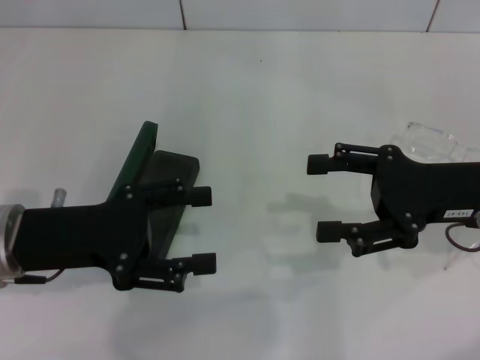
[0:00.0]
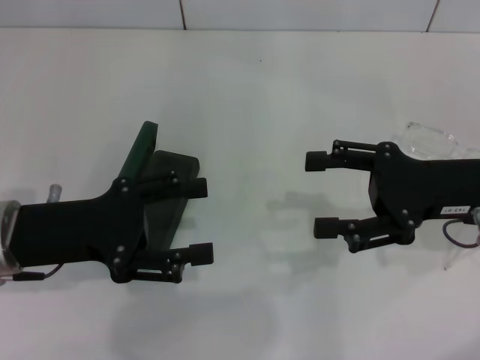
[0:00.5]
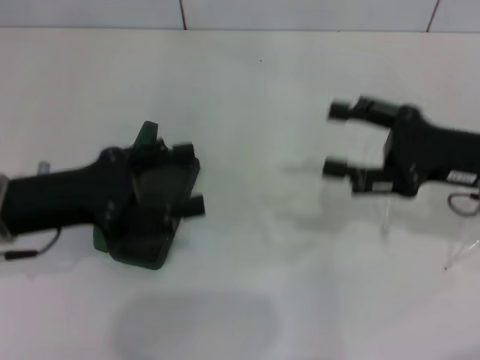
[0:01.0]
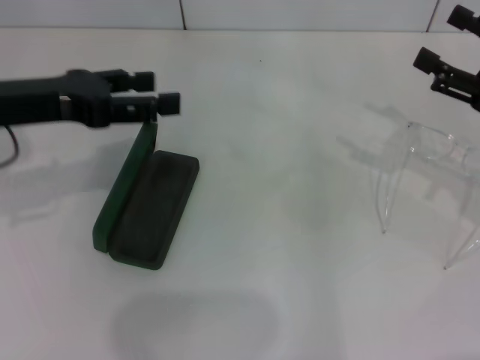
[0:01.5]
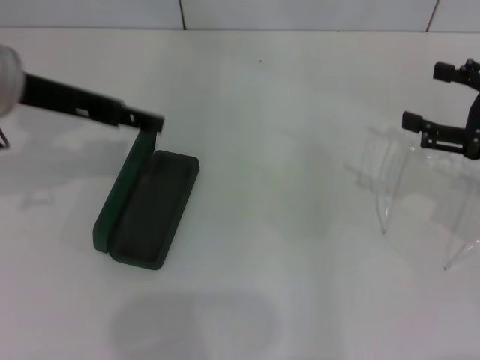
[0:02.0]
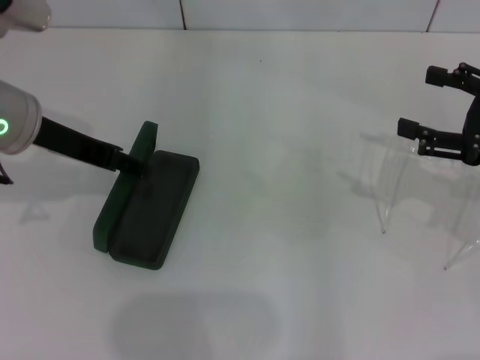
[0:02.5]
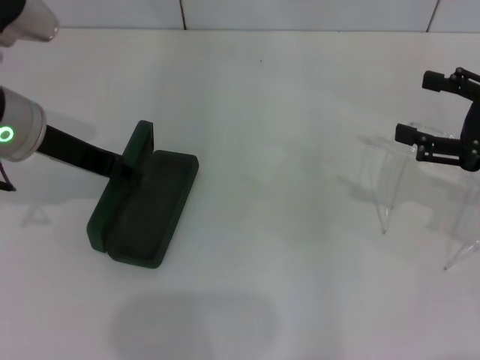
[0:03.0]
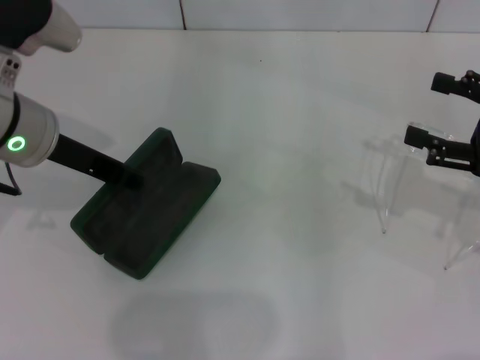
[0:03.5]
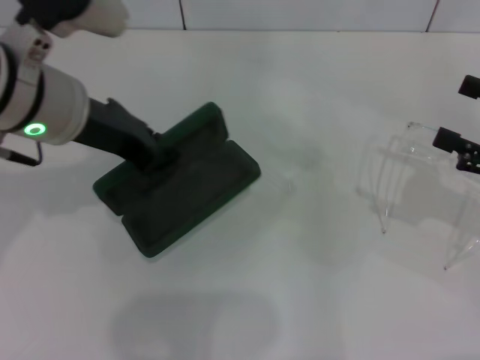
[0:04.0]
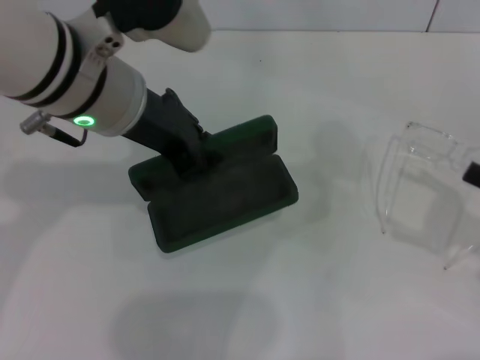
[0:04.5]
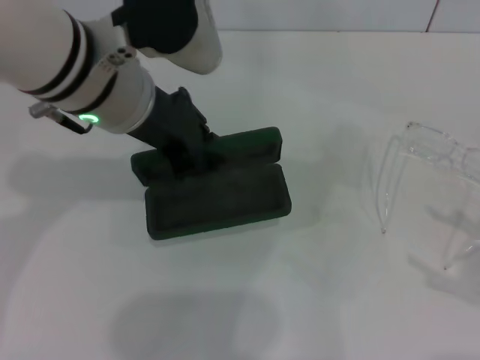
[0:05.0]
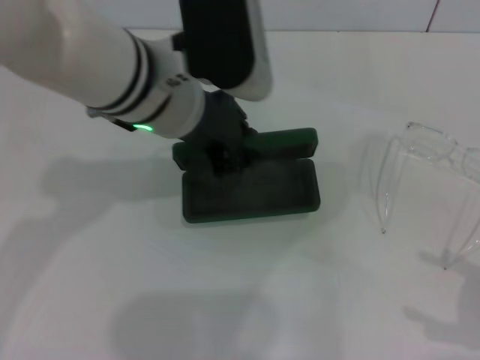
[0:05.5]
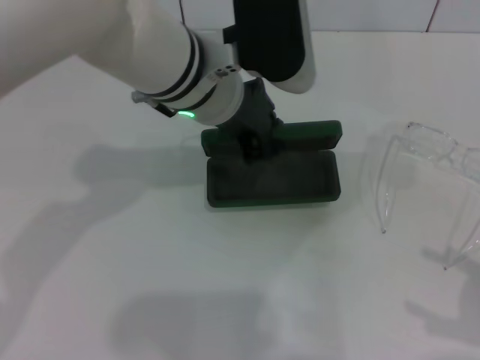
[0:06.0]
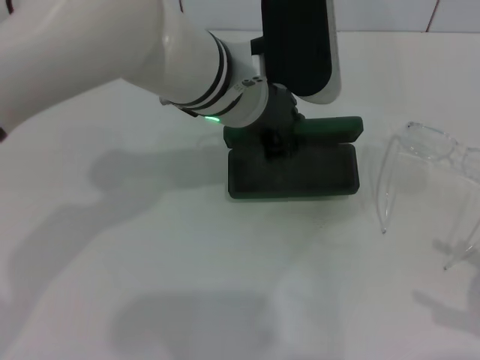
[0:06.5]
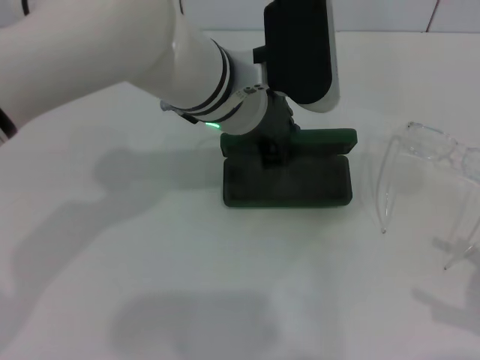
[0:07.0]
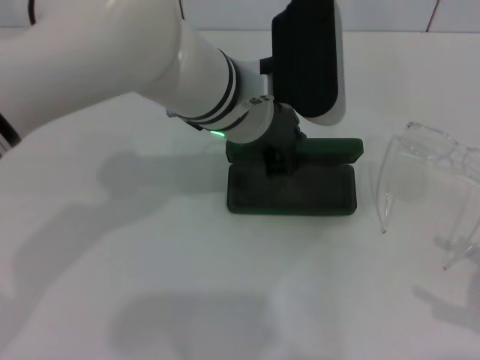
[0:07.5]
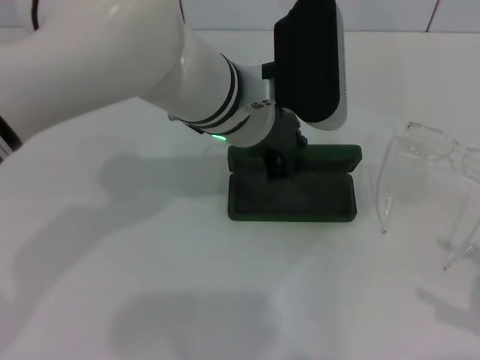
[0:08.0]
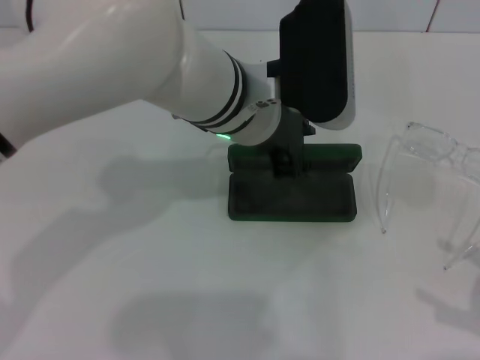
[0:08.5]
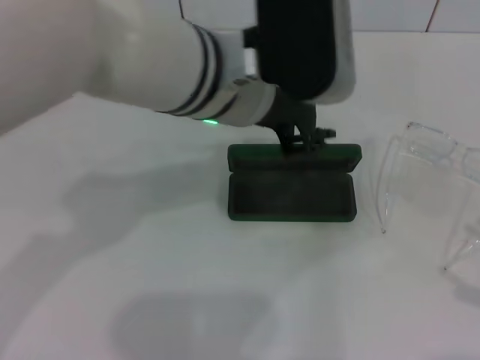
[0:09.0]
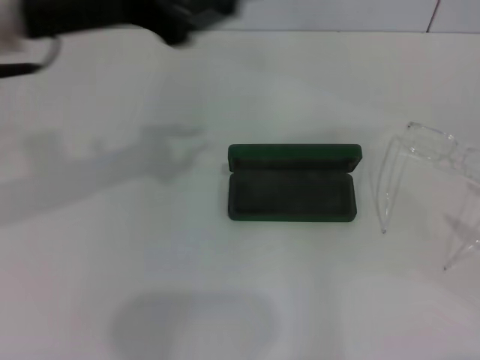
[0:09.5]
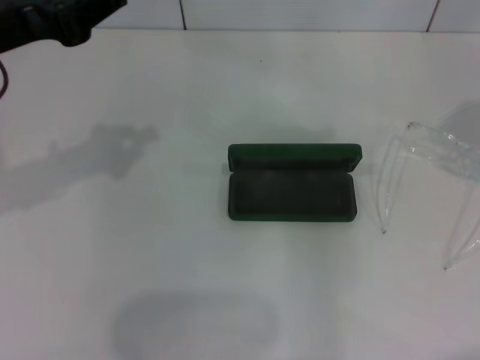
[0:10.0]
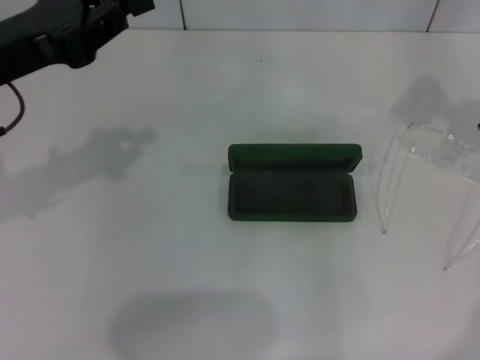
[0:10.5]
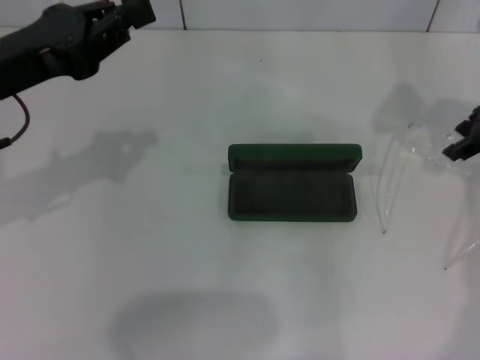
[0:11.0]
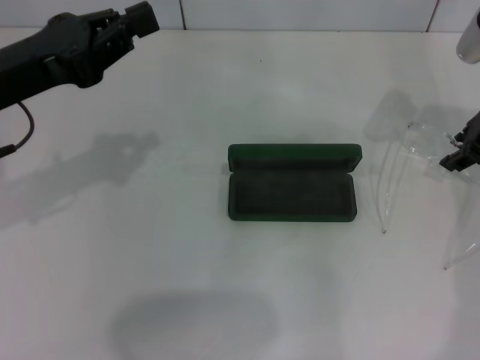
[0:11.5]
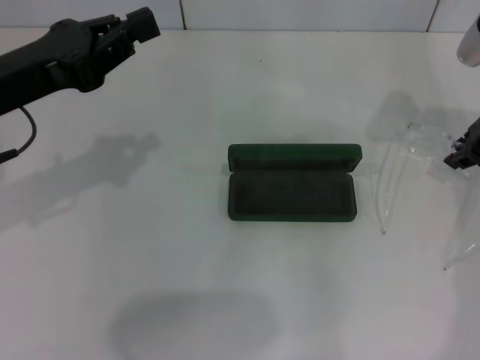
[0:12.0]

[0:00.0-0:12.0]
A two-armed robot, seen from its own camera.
Step, 0:00.0 to 0:03.0: Grab the glasses case with your left hand.
Step, 0:03.5 to 0:08.0: Place the glasses case in the center of the table with your left hand.
0:00.0 to 0:02.0: The left gripper heads upward and forward, covering some 15 cm. The right gripper shifts about 10 cm to the right.
0:02.0 to 0:04.0: The left gripper goes approximately 5 cm to the right, and closes its fingers.
0:04.0 to 0:06.0: The right gripper is displaced backward by roughly 10 cm. Meanwhile the left gripper moves to the right, about 10 cm.
0:08.0 to 0:10.0: The right gripper goes some 25 cm forward and upward. The left gripper is displaced to the left by some 25 cm.
0:10.0 to 0:12.0: The left gripper moves downward, roughly 5 cm; the right gripper moves downward, to the left and forward, some 15 cm, and closes its fingers.

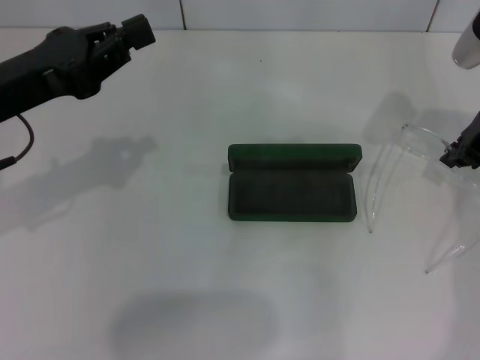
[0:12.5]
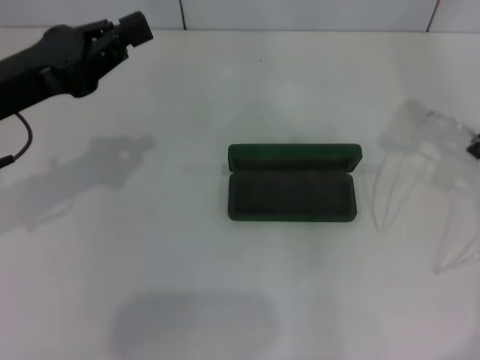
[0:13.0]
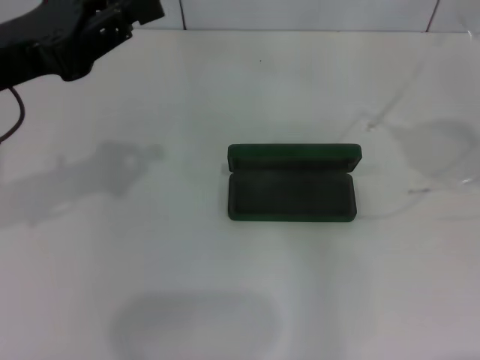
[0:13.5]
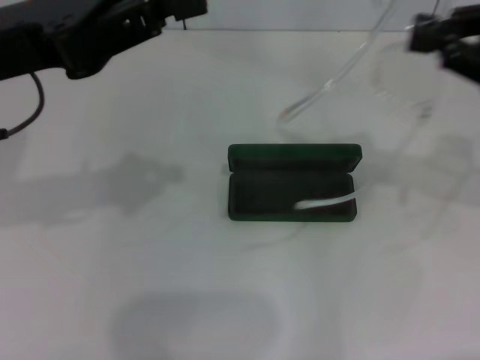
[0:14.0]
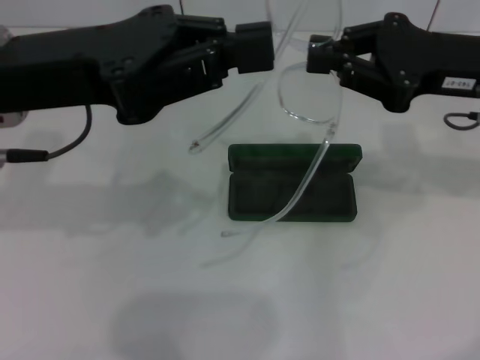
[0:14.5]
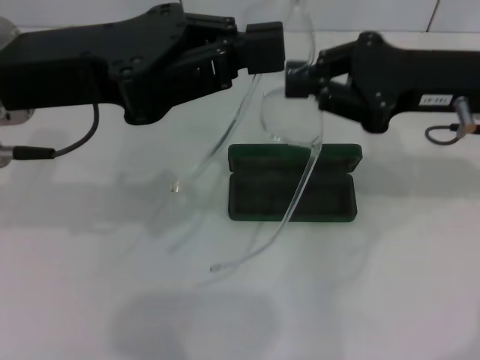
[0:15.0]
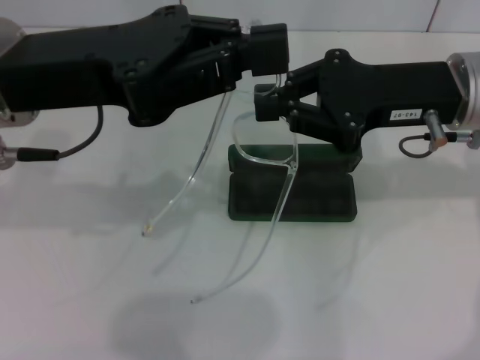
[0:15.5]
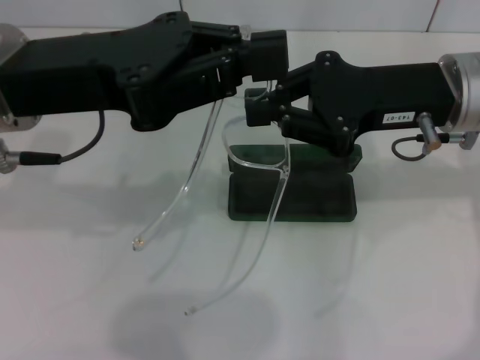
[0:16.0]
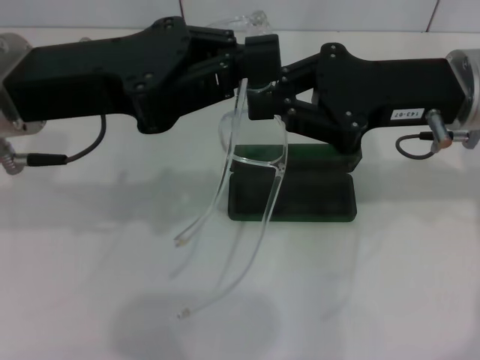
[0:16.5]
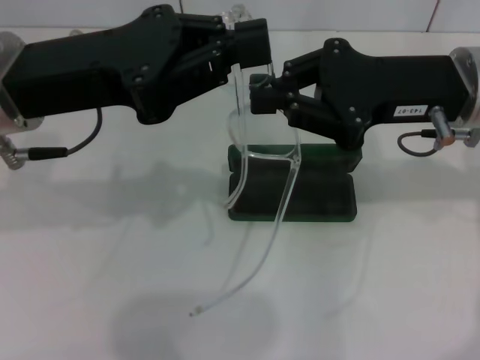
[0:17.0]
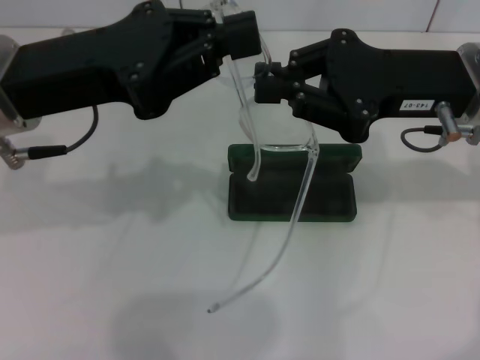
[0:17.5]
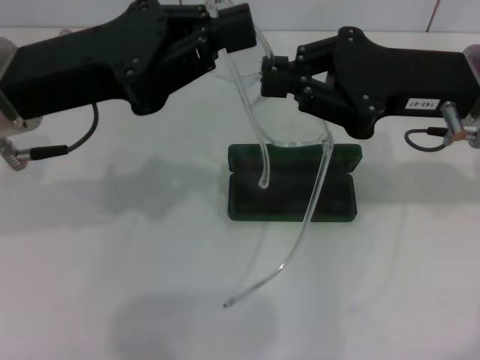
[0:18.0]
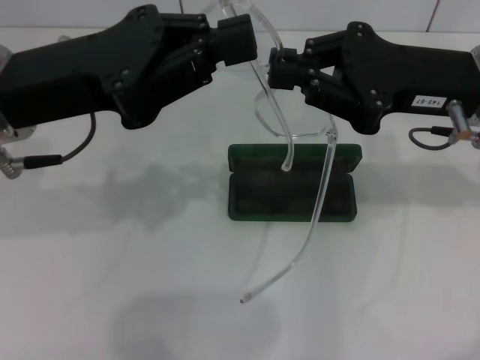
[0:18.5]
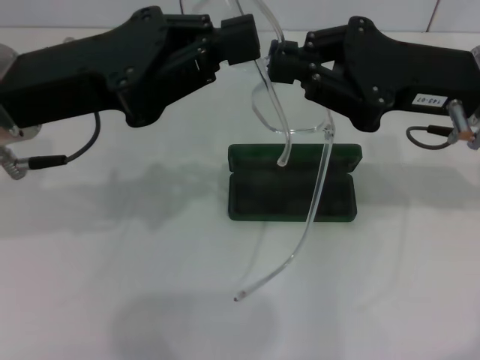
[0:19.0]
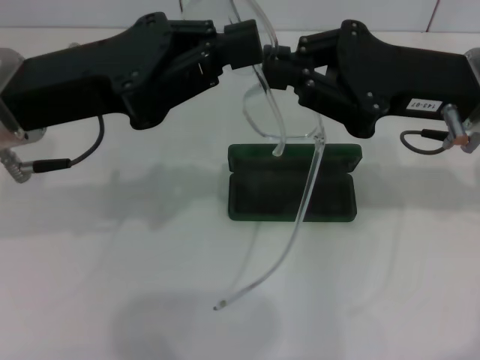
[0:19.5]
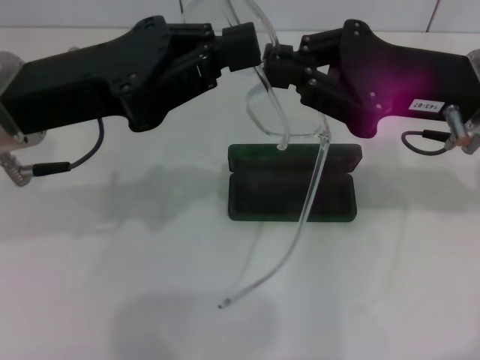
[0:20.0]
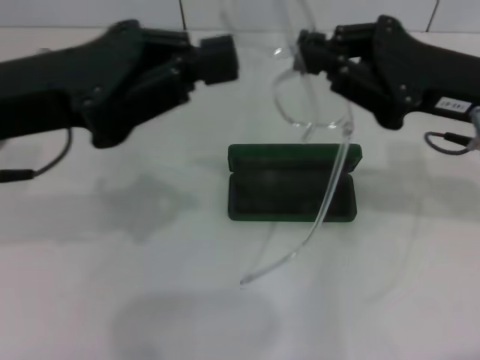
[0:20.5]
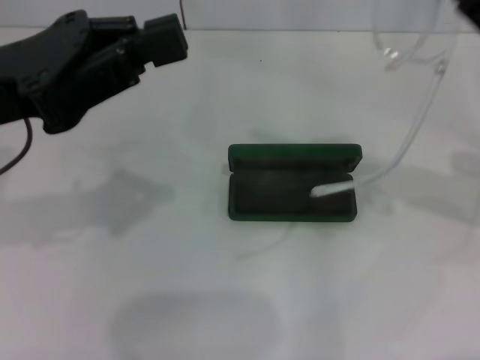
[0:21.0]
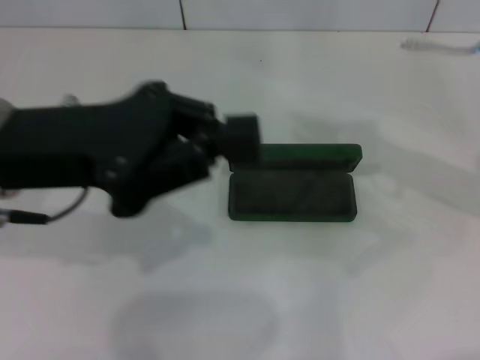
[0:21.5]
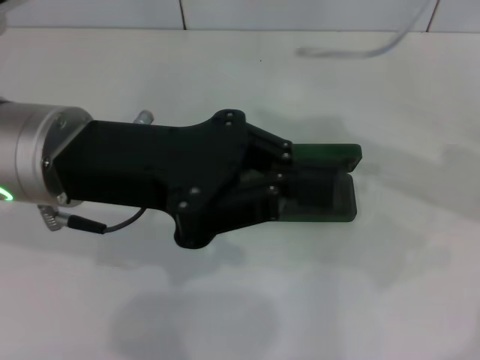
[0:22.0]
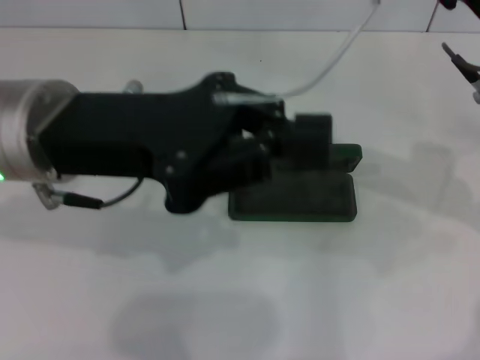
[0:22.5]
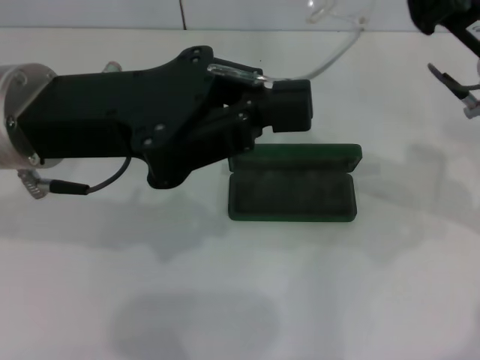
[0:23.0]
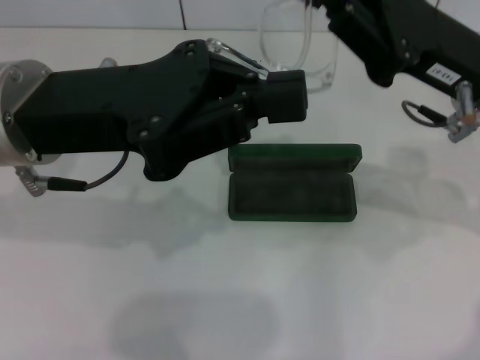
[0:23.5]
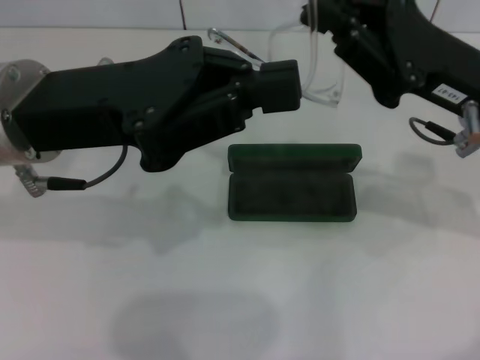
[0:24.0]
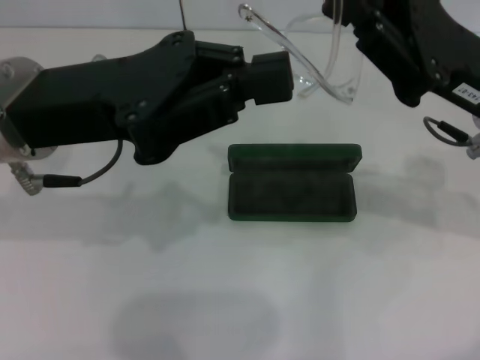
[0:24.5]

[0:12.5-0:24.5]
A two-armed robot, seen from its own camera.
0:12.5 to 0:14.5: The right gripper travels backward by approximately 5 cm, and travels upward and back again, some 10 cm each way, while the left gripper shifts some 10 cm upward and to the right.
0:16.5 to 0:20.5: The grippers make only small movements.

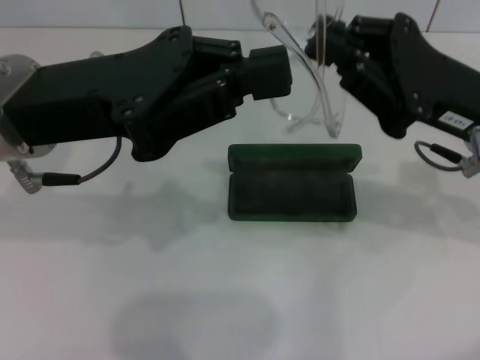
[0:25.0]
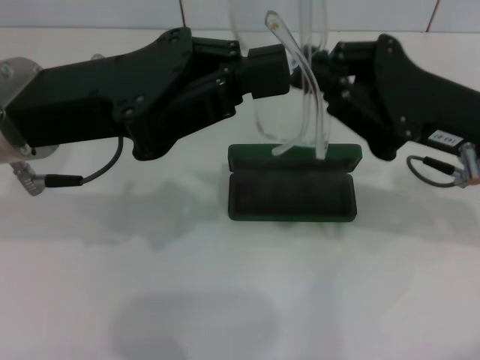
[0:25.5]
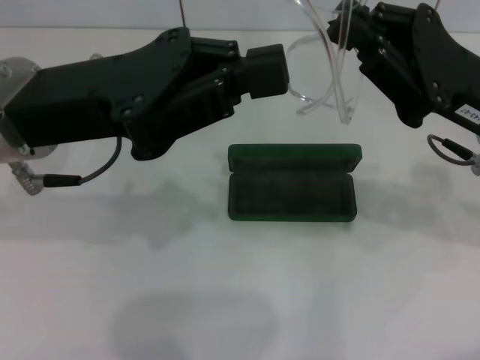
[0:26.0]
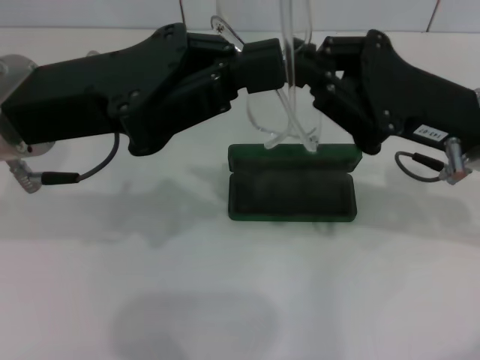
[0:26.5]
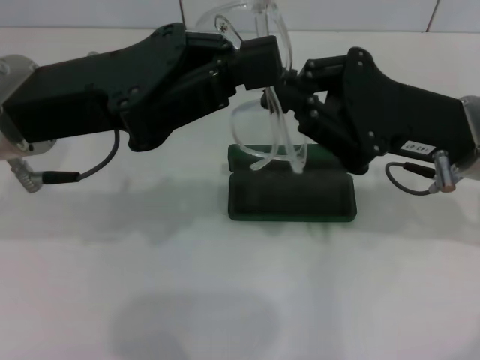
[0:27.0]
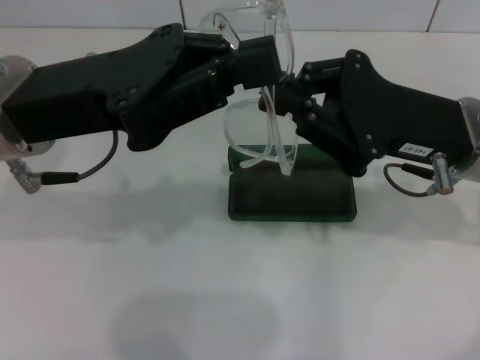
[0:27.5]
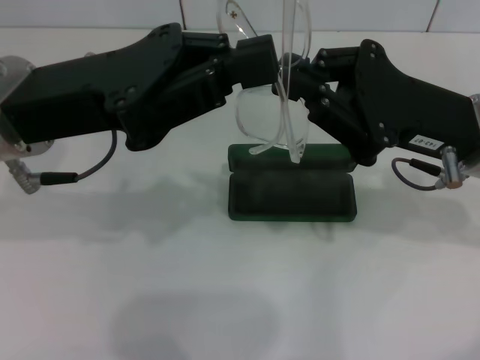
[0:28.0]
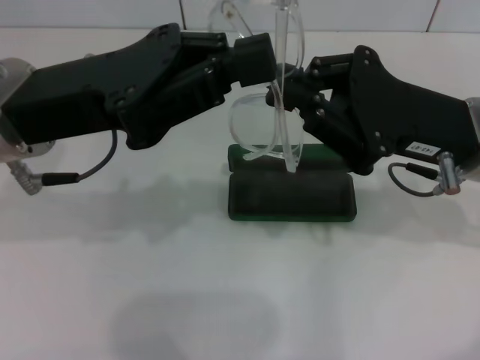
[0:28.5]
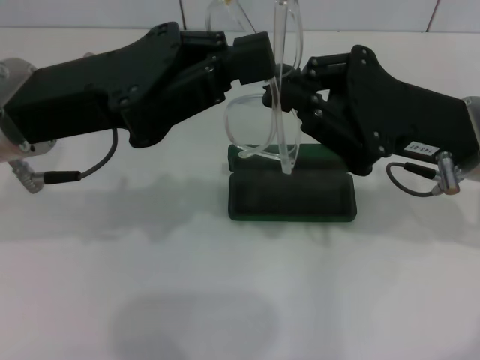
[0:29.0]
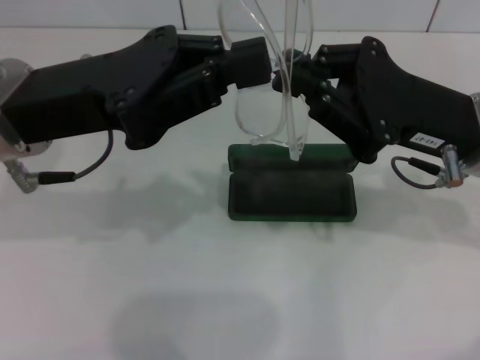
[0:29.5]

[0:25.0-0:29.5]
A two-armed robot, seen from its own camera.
Step, 0:25.0 to 0:29.5: Lift the glasses with your right hand.
0:25.0 to 0:27.0: The grippers move only a little.
0:27.0 to 0:29.5: The two grippers keep their place.
